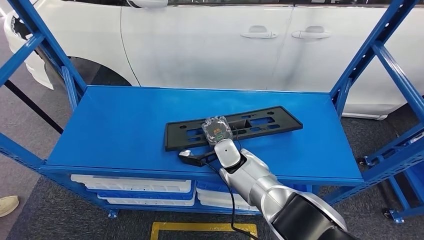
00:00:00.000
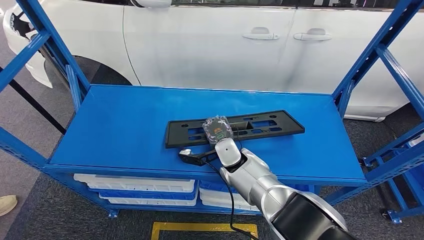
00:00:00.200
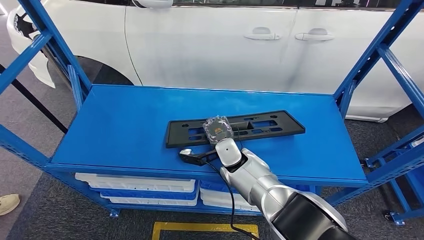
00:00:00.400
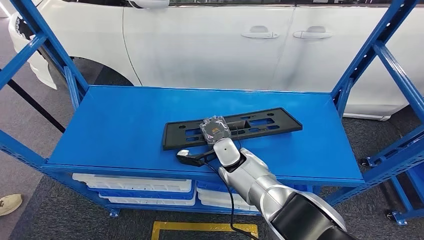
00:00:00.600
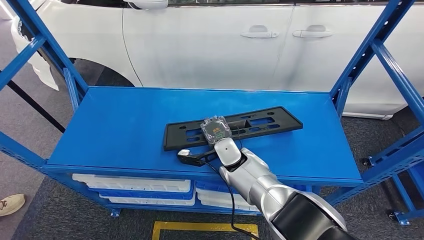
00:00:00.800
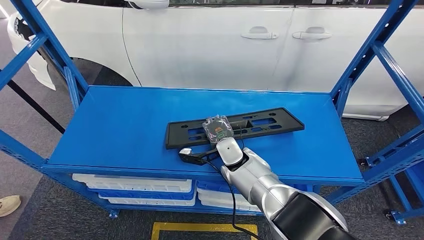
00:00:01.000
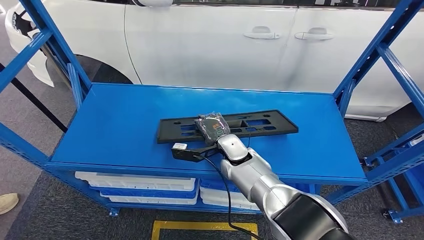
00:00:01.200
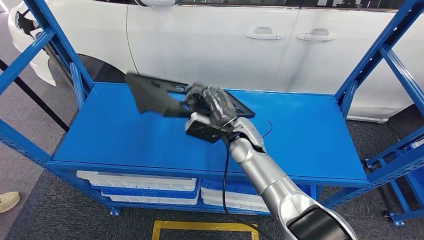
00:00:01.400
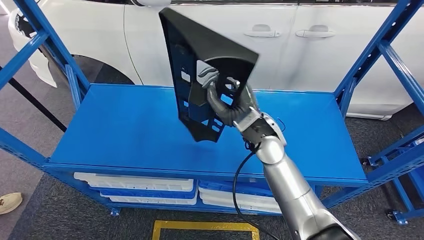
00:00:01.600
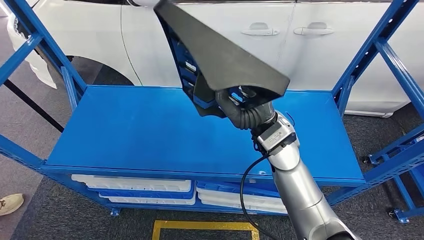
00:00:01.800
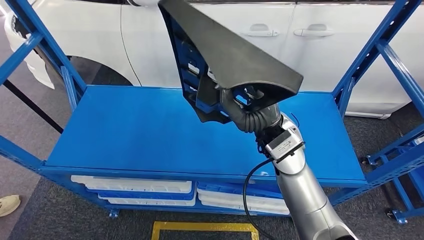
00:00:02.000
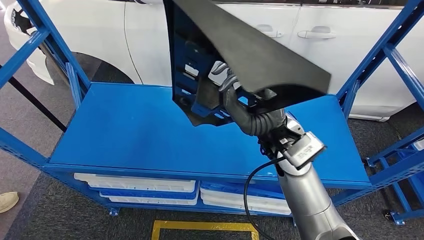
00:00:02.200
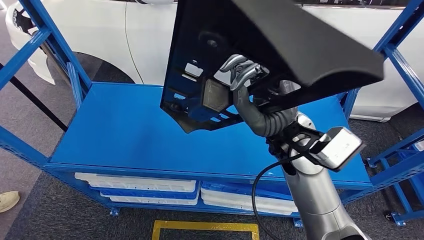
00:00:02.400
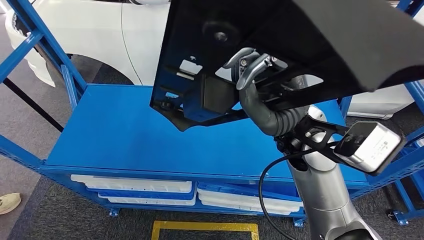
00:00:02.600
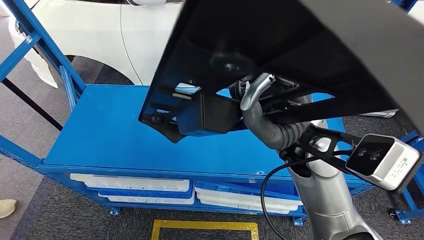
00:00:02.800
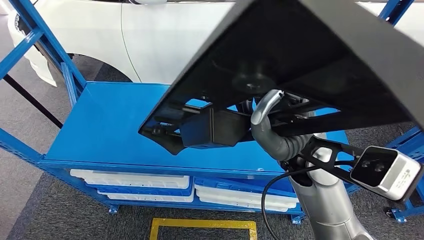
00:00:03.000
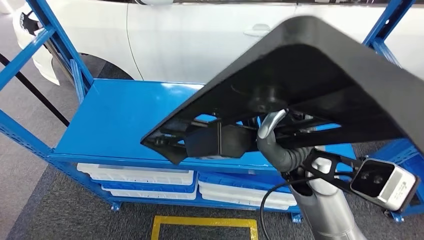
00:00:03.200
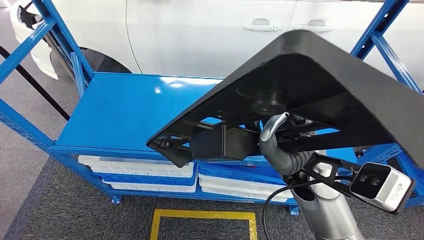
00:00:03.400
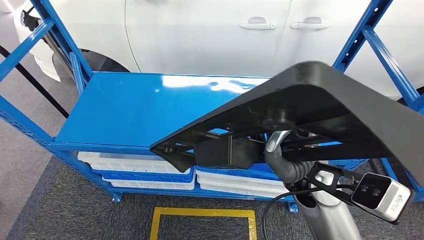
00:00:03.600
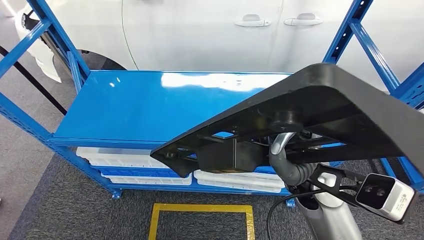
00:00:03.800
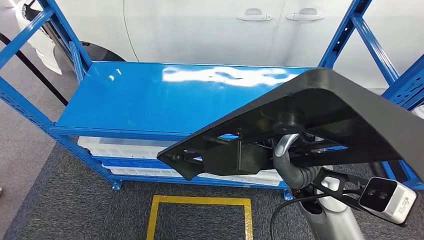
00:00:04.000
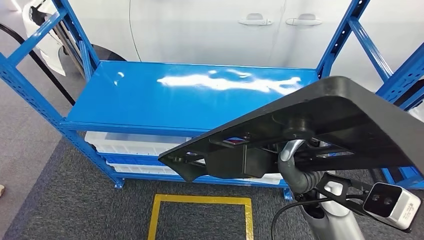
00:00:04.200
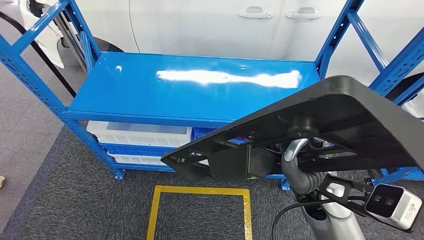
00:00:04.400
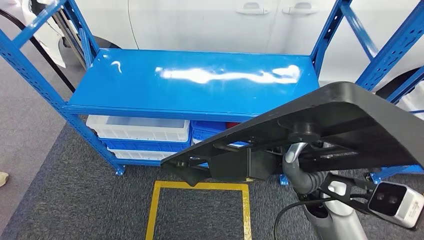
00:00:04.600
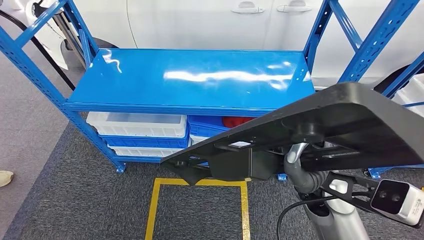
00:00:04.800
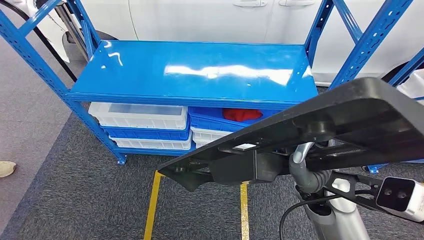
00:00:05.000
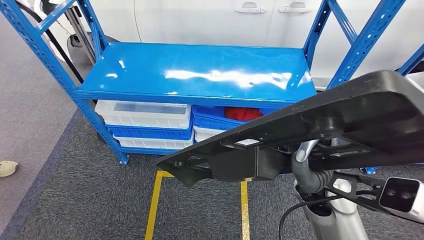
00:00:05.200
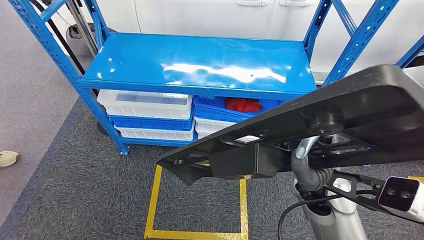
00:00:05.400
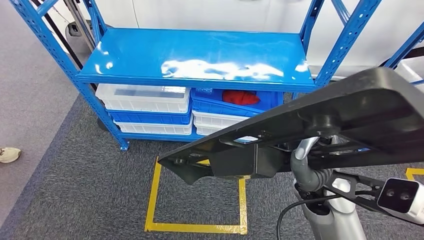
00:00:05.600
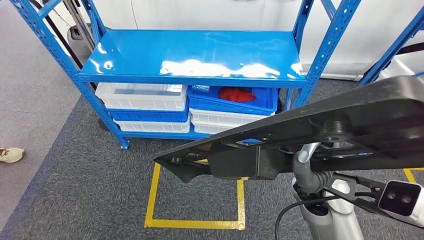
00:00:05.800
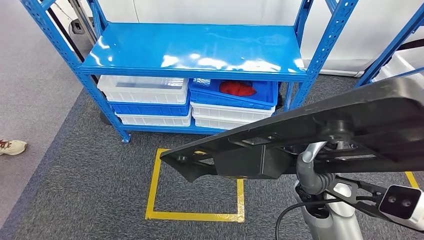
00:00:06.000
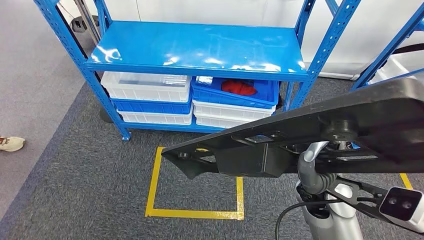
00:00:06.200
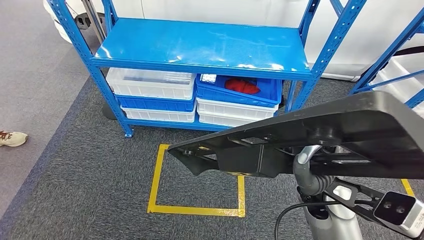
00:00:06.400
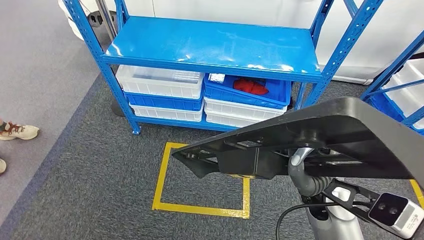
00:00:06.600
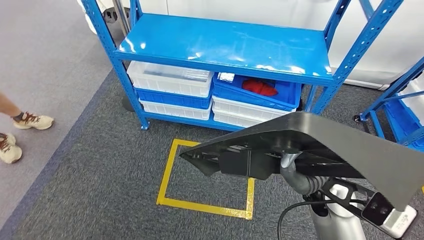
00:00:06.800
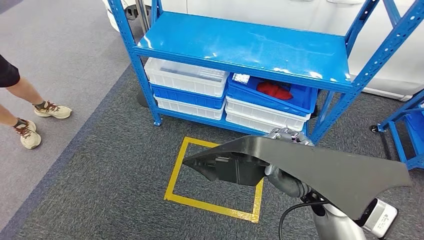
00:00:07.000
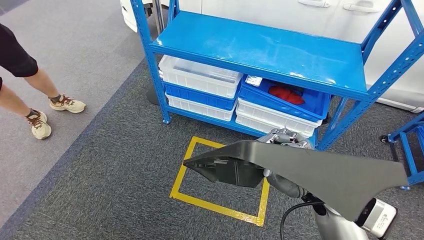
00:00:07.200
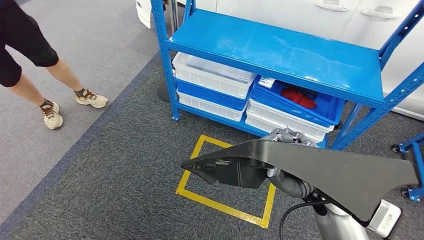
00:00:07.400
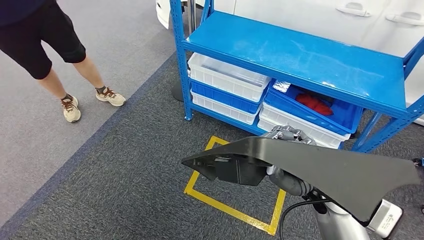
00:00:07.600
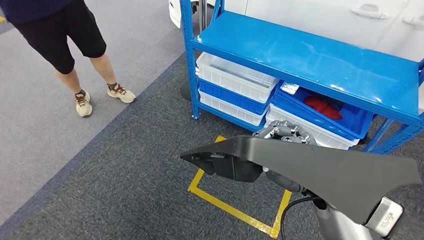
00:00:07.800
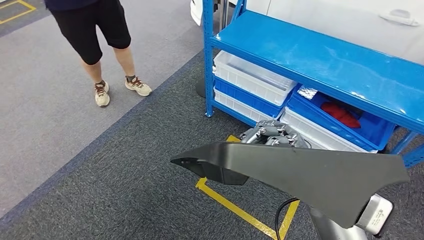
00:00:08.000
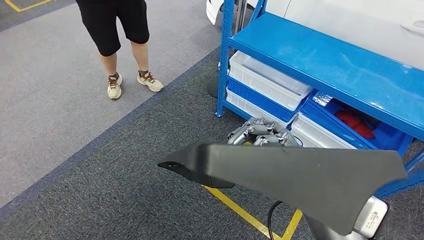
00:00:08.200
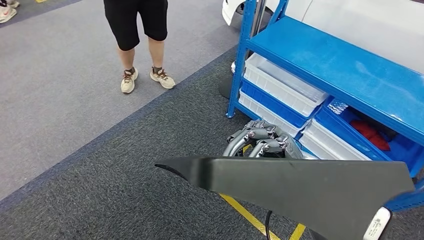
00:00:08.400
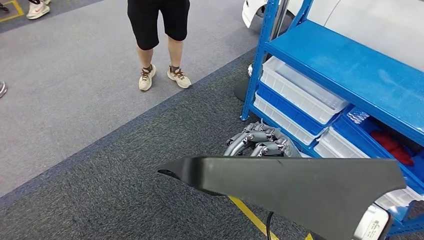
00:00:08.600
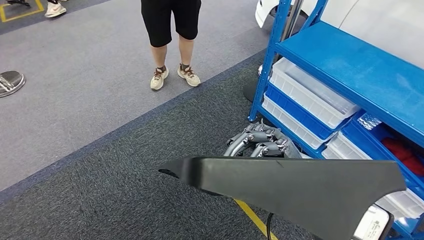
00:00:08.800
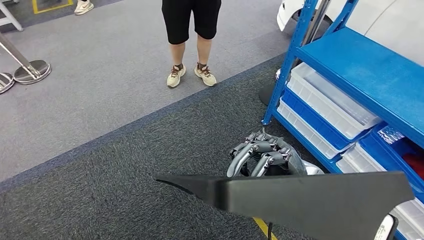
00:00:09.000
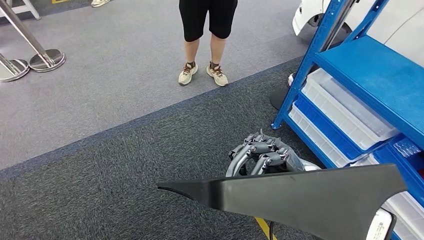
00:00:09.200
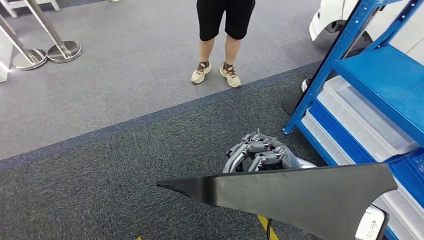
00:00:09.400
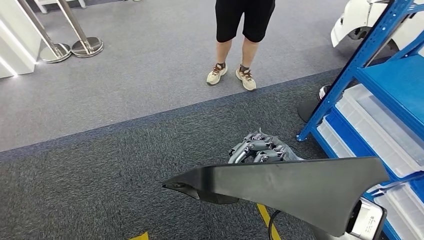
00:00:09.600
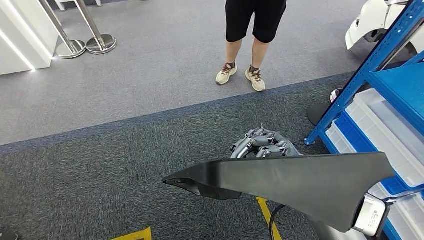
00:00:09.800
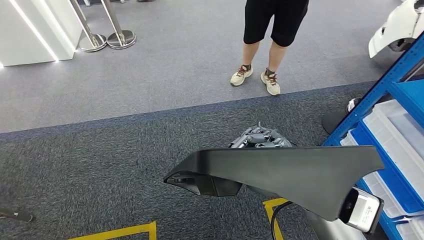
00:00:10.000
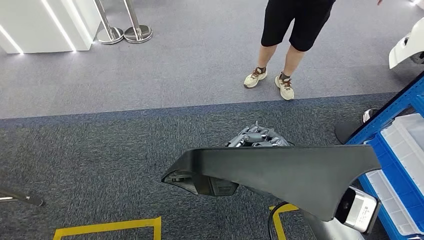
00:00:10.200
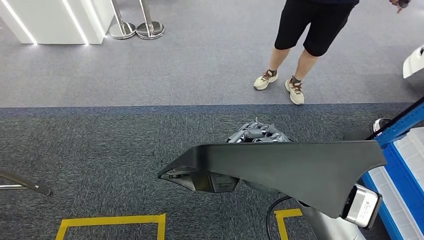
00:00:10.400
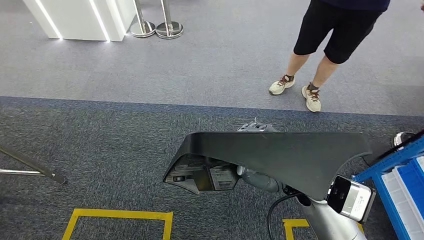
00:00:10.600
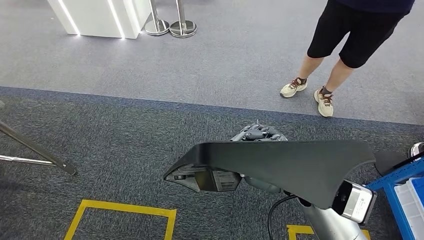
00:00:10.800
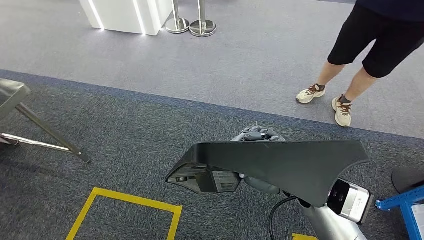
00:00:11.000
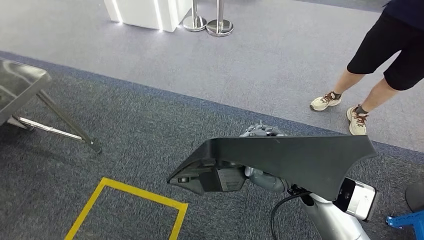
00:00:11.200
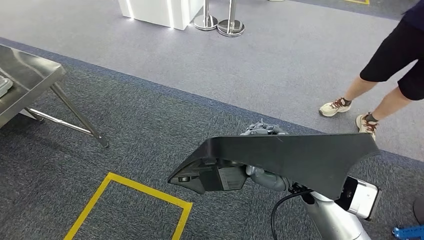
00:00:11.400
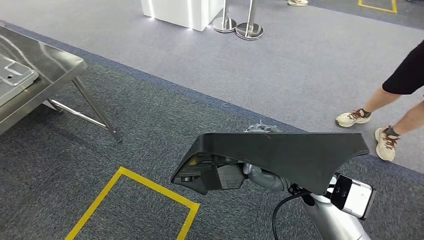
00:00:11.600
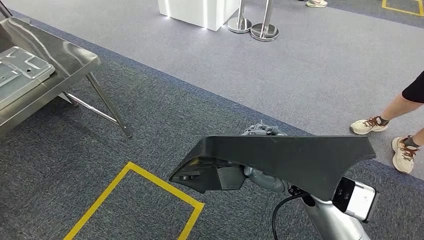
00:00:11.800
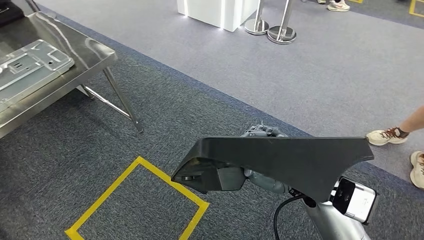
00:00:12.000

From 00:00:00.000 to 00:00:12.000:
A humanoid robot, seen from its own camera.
Step, from 00:00:00.000 to 00:00:03.600: Pick up the large material from the shelf.

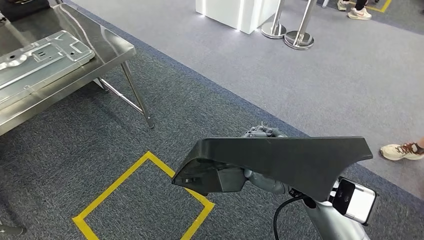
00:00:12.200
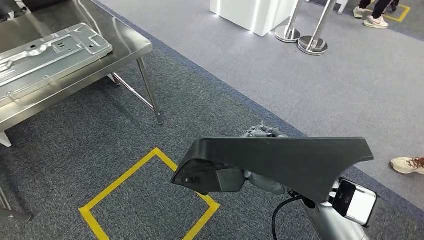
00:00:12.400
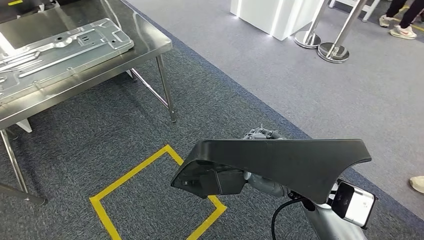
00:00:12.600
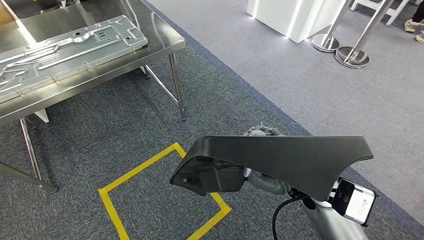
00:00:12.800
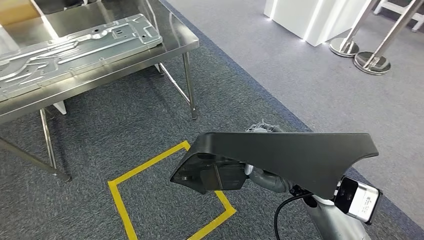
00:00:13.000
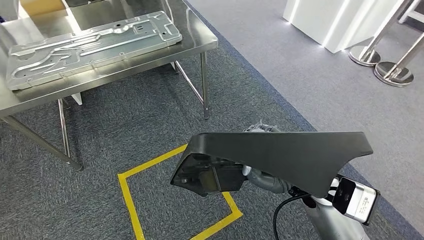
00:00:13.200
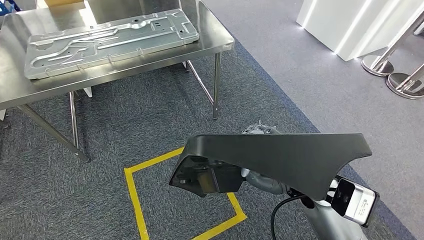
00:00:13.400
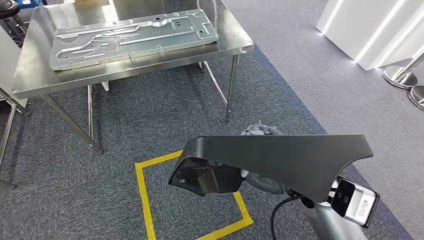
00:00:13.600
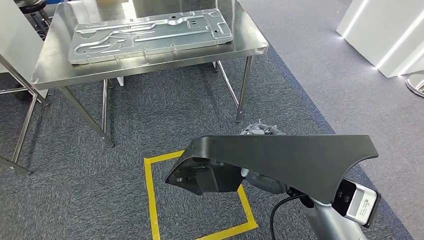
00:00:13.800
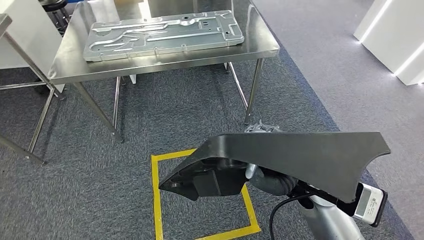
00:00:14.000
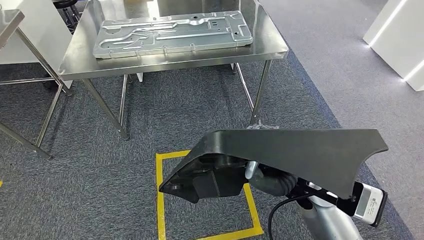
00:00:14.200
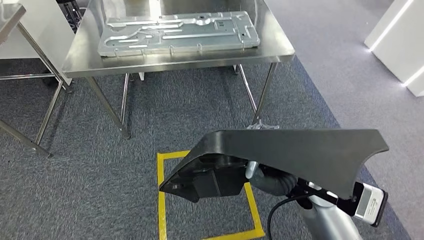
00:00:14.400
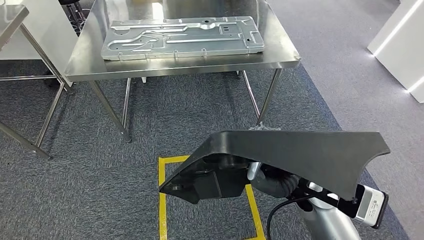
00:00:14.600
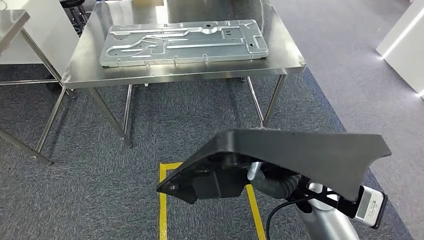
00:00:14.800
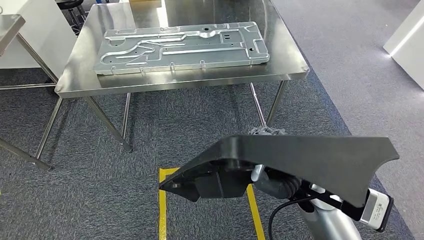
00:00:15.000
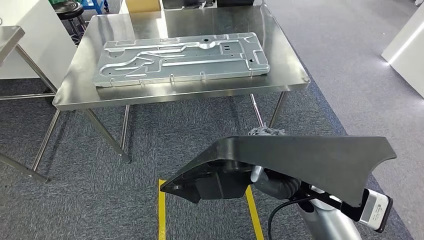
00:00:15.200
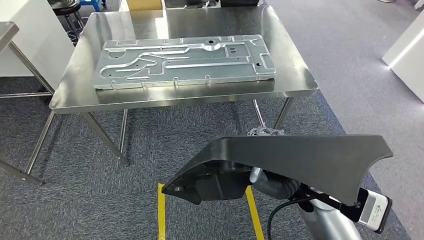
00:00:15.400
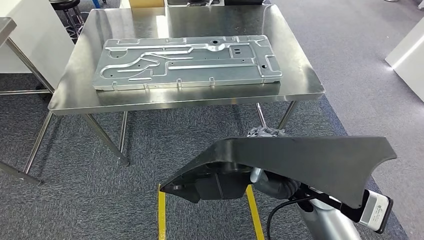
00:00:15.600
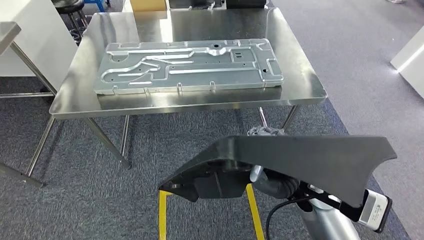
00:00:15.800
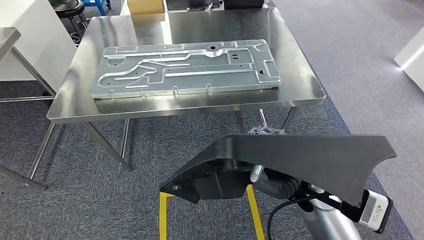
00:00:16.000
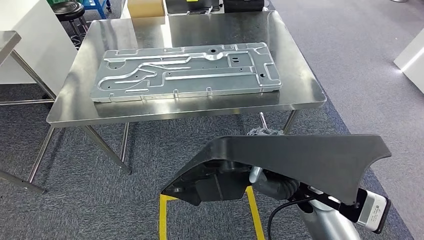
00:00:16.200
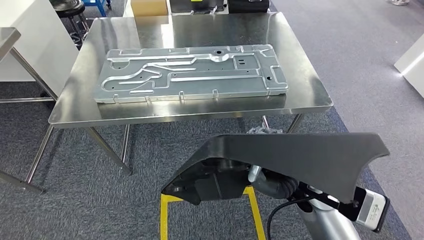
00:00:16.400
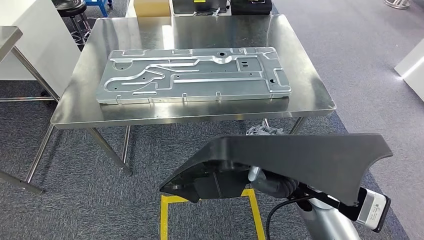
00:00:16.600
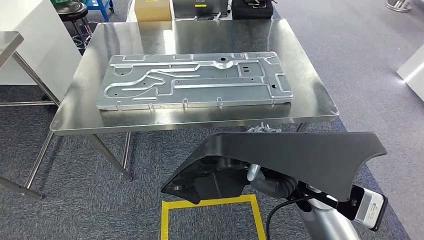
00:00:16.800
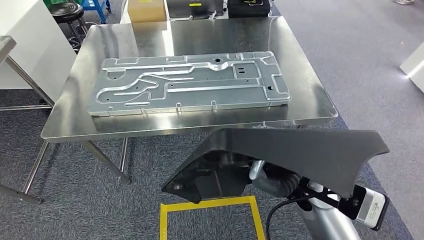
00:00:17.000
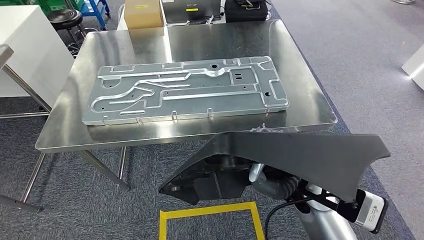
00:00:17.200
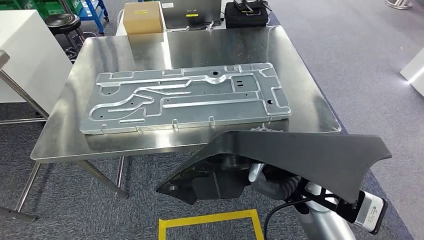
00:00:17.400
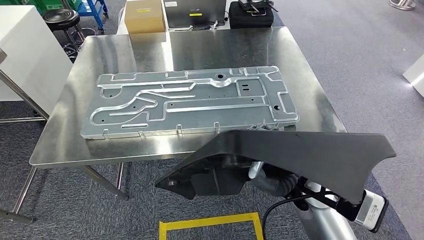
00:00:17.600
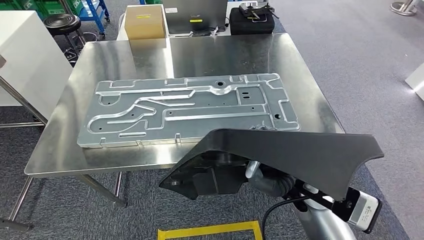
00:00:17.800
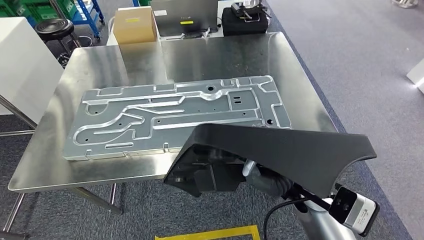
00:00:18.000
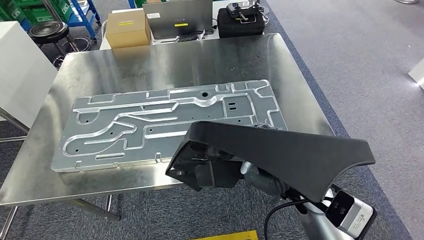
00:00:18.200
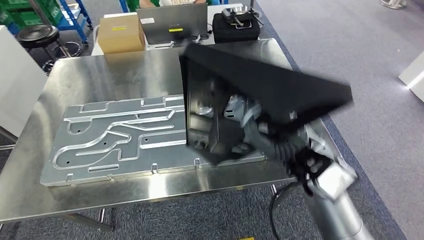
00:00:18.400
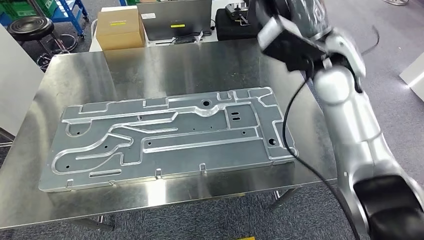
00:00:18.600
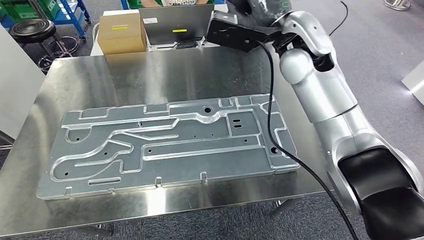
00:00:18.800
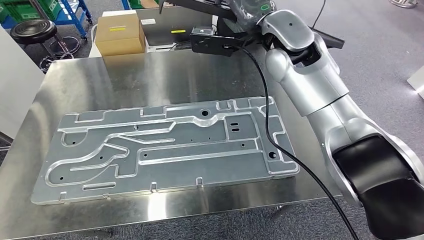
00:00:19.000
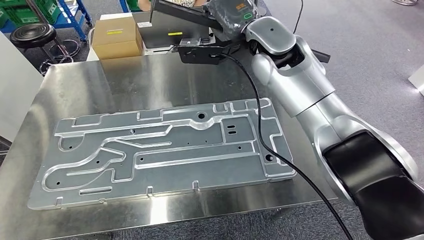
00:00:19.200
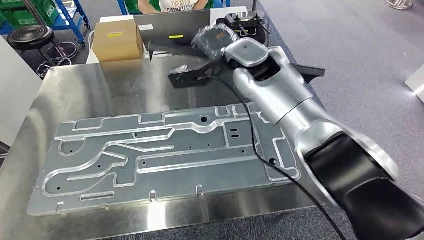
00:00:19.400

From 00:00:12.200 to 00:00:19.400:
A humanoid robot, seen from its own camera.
Step, from 00:00:12.200 to 00:00:18.600: Move the large material to the workbench.
